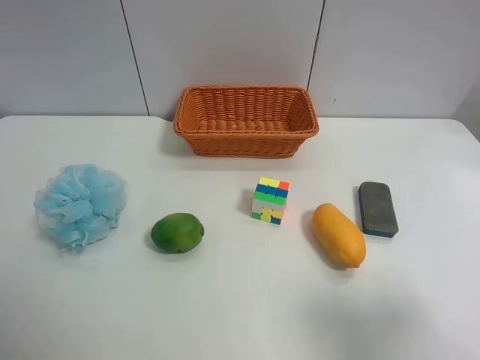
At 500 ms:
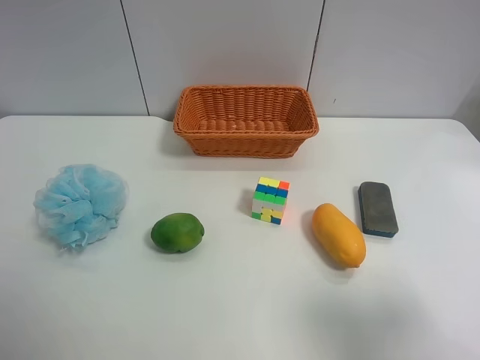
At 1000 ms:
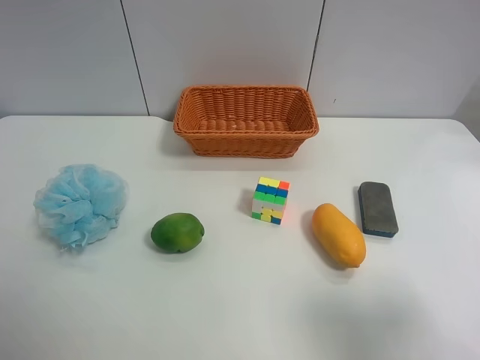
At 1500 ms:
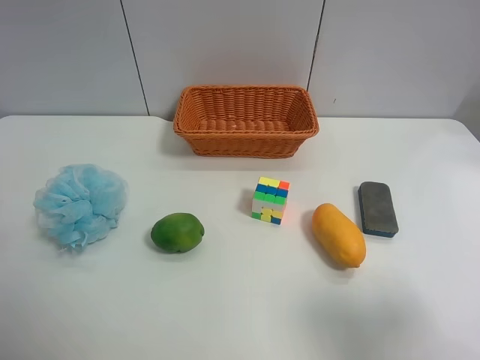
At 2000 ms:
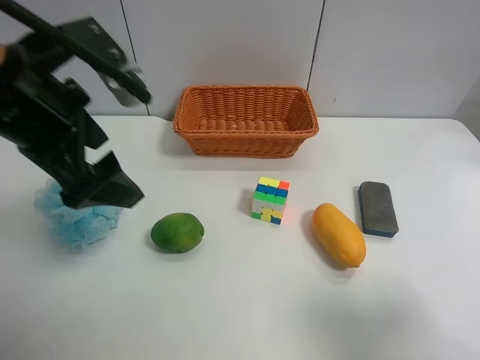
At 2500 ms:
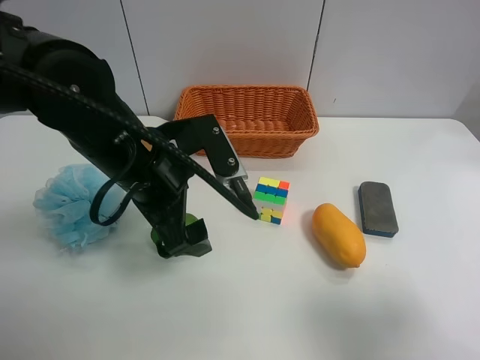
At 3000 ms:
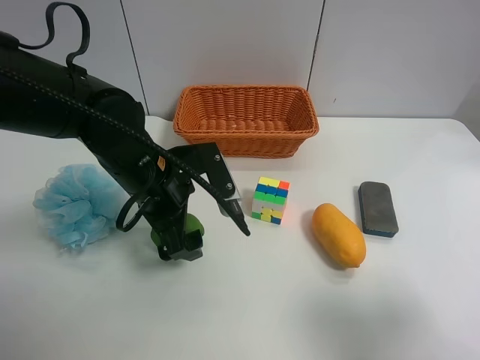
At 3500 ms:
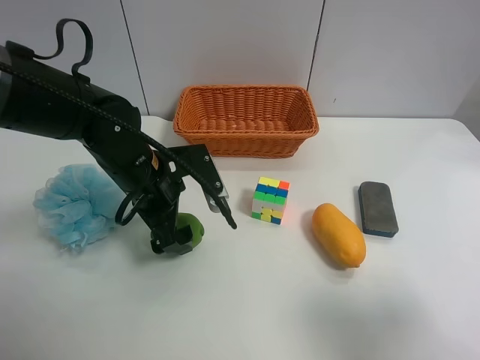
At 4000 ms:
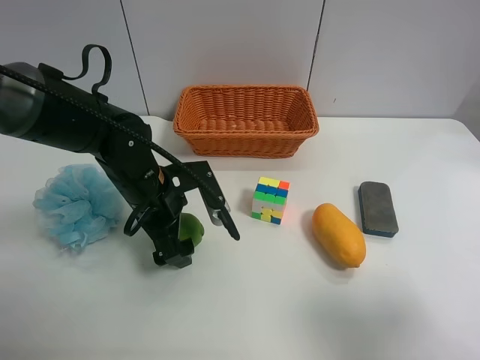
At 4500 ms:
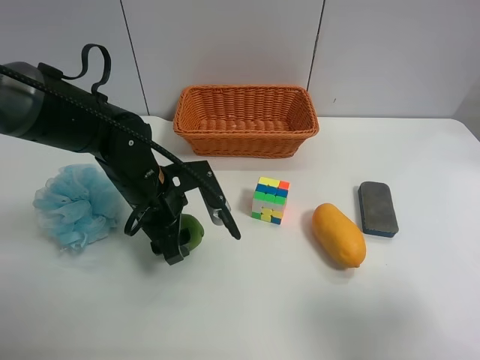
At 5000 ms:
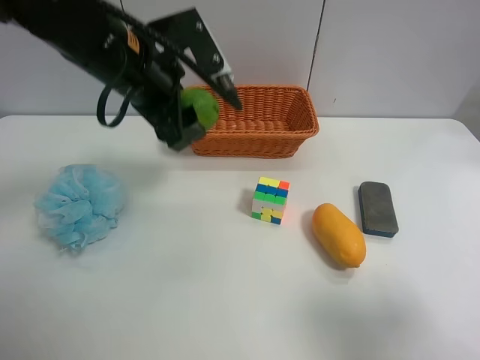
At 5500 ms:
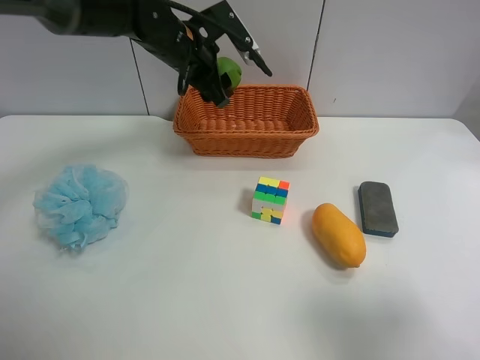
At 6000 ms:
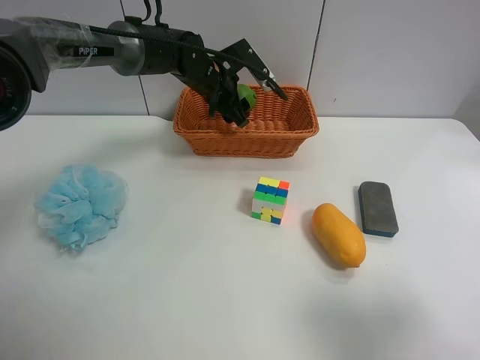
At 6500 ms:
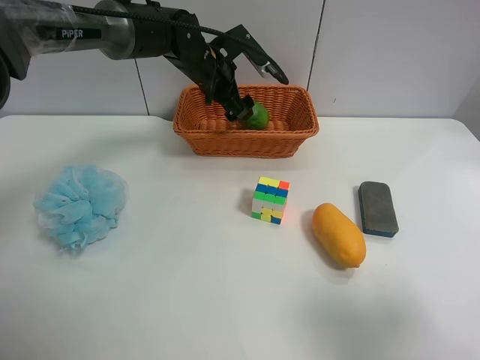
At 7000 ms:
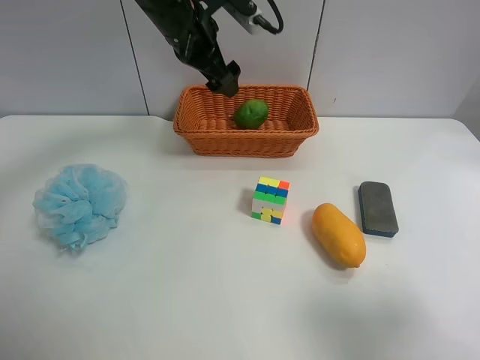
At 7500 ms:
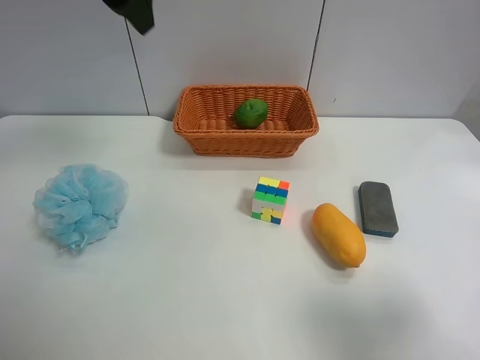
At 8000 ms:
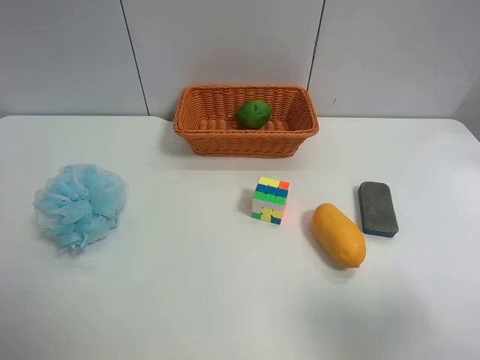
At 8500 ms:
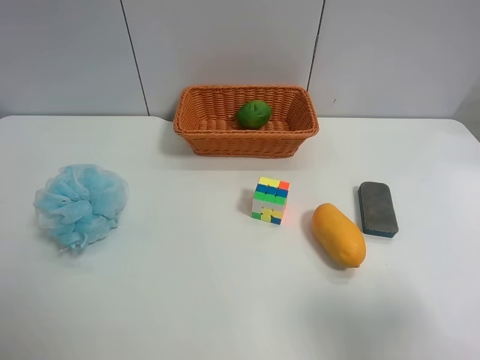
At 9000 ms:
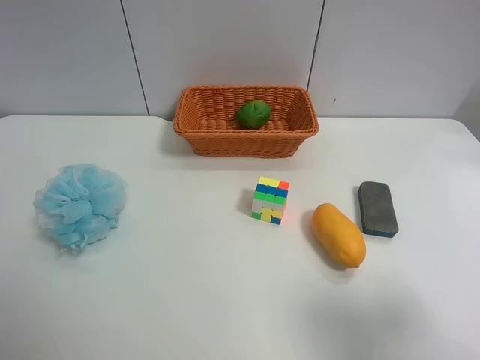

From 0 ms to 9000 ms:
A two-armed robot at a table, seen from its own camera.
Task of the whole recording: use the left gripper to grab items from the table and place them in the basket.
Step, from 0 ms to 4500 ms: Grasp the apple rubber puff with the left gripper.
Step, from 5000 ms to 6500 ms: Place the apple rubber puff into the basket with the left gripper.
From 0 ms to 2000 ms: The left gripper is displaced forward and to the right by about 25 cm.
From 2000 ms to 4500 ms: The left gripper moves downward, some 15 cm, and closes.
From 4500 ms to 7000 ms: The left gripper travels forward and upward by approximately 25 cm, and opens.
From 7000 ms to 9000 ms: The left gripper shifts roughly 50 cm backward and to the left.
